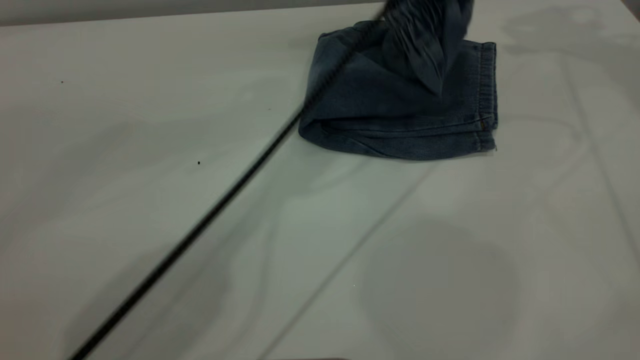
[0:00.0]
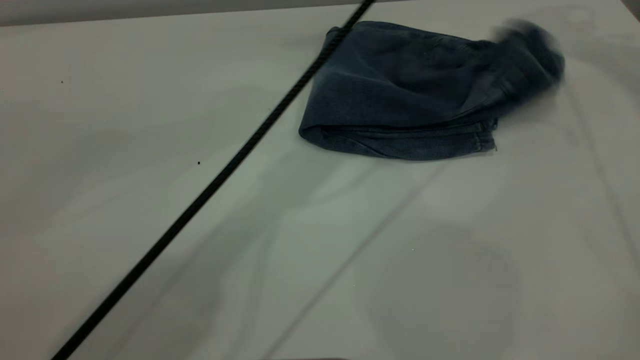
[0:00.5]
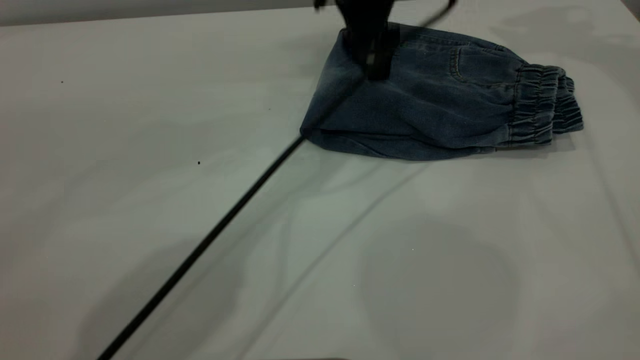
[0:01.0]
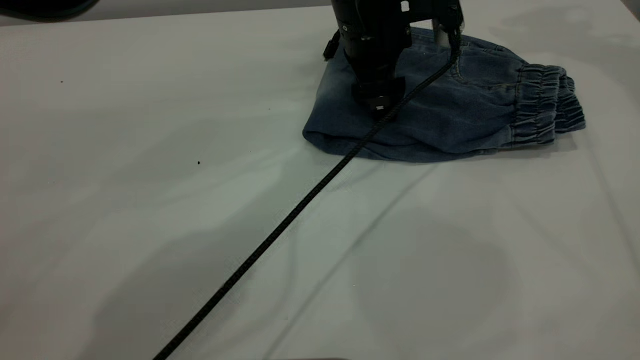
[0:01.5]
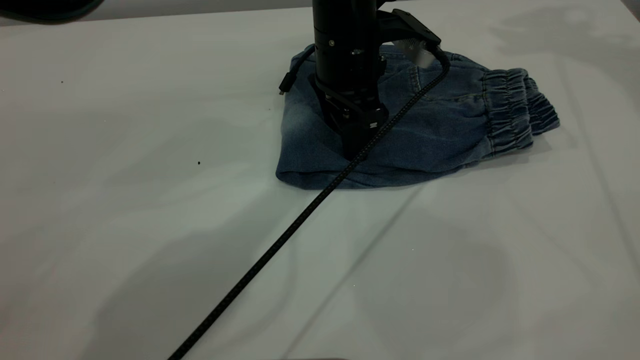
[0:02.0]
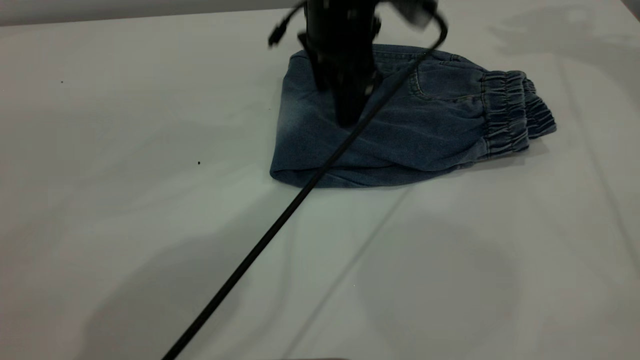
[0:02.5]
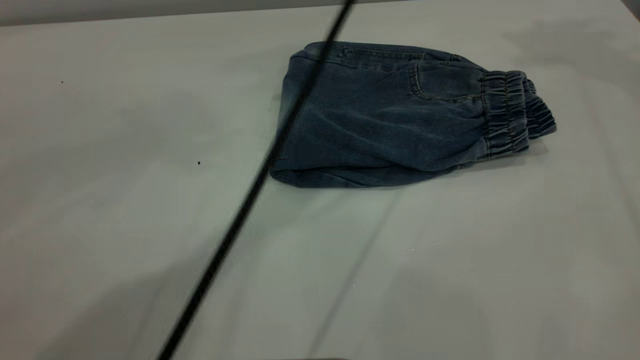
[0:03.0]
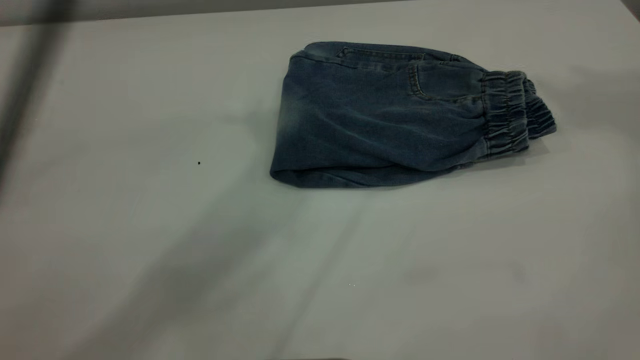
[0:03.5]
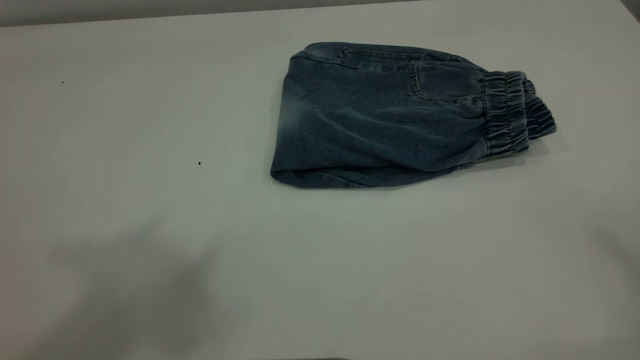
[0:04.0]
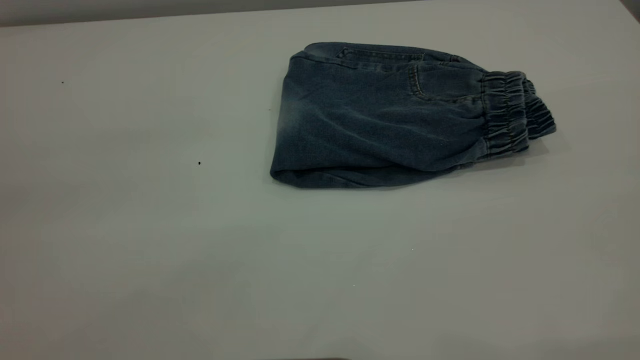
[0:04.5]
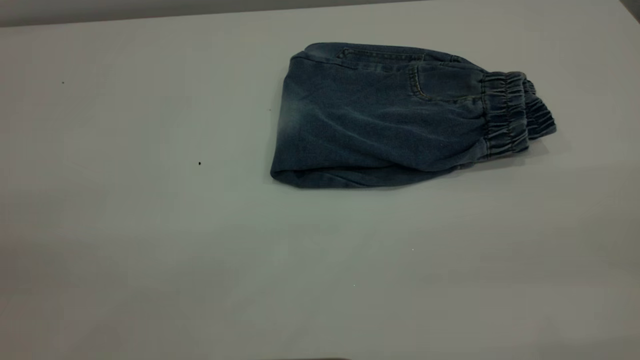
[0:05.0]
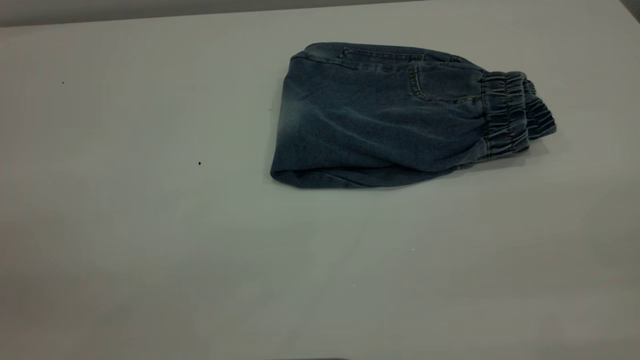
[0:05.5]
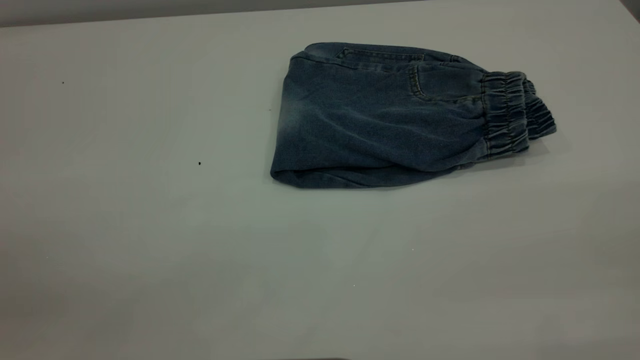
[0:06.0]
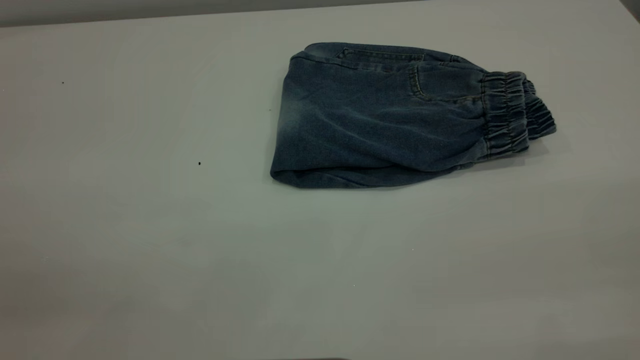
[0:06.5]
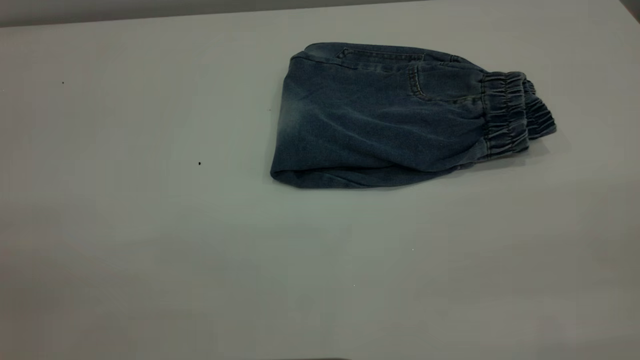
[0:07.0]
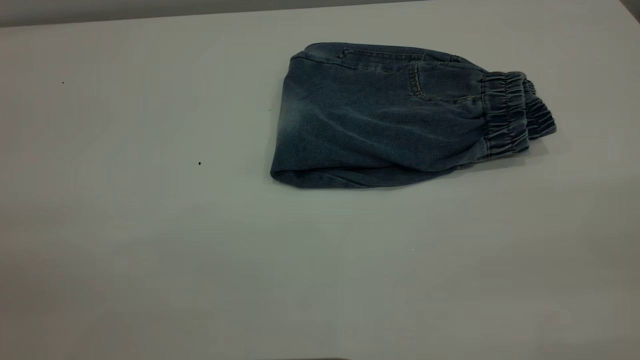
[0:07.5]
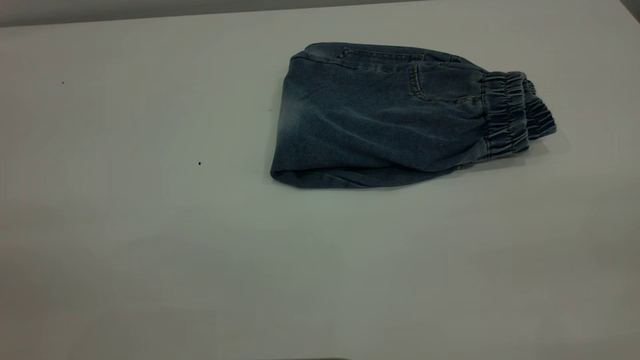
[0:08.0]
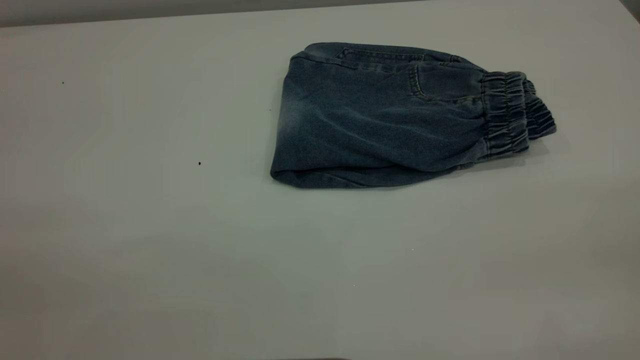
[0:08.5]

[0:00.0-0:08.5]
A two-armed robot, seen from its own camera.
0:00.0 to 0:02.0: The left gripper travels downward by approximately 10 cm, and opens its fingers.
0:02.0 to 0:04.0: The left gripper is displaced upward, backward and to the left by some 50 cm. The right gripper travels backward and upward by some 40 cm.
